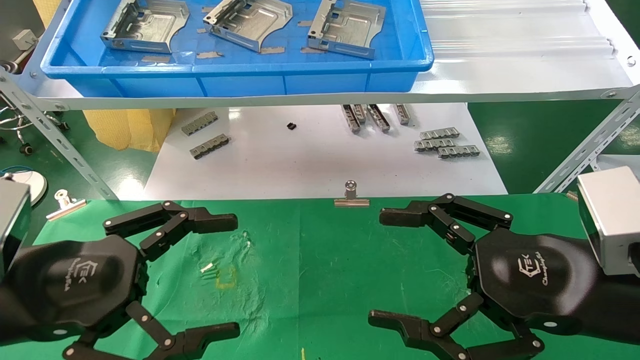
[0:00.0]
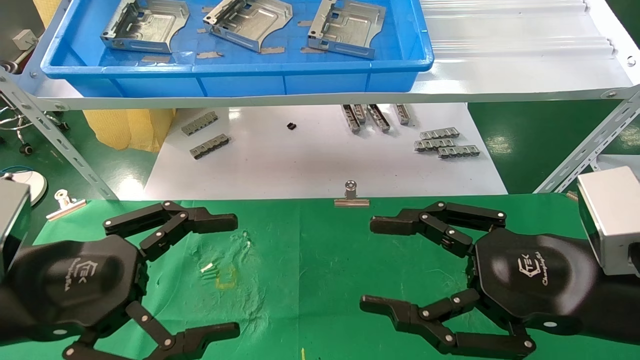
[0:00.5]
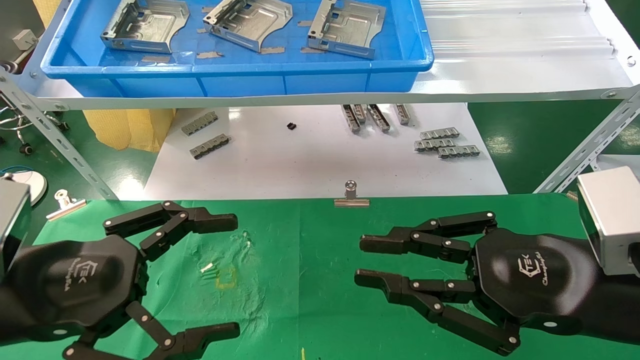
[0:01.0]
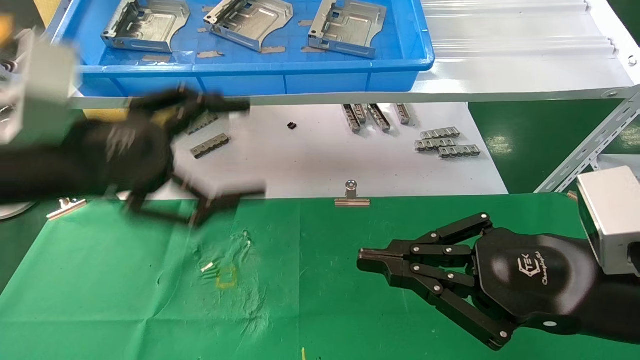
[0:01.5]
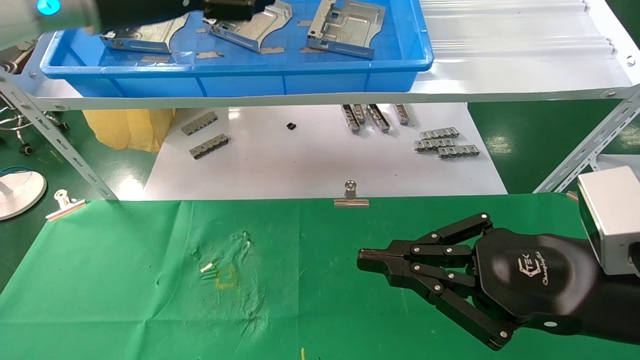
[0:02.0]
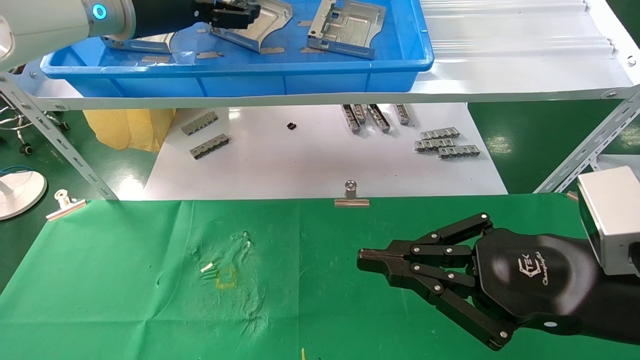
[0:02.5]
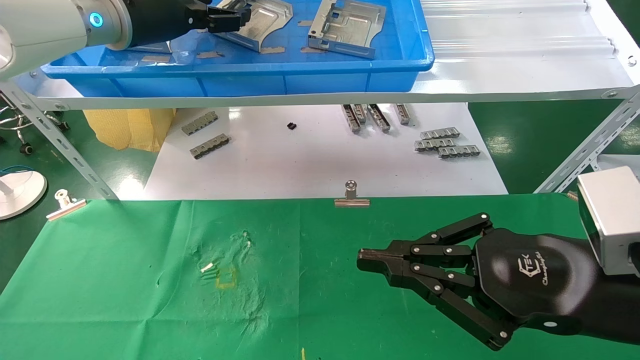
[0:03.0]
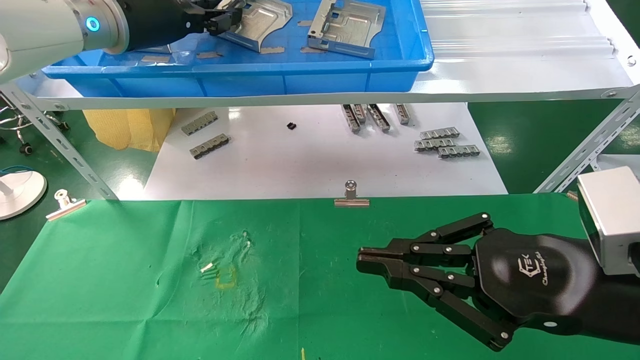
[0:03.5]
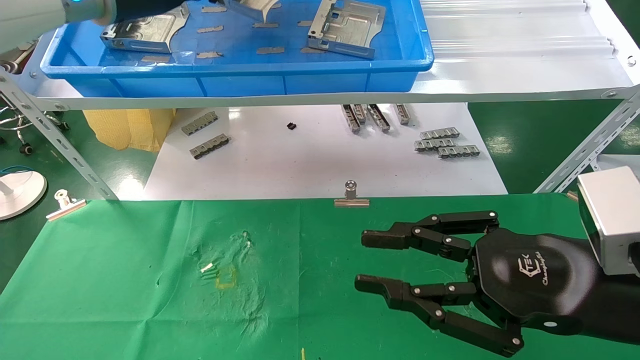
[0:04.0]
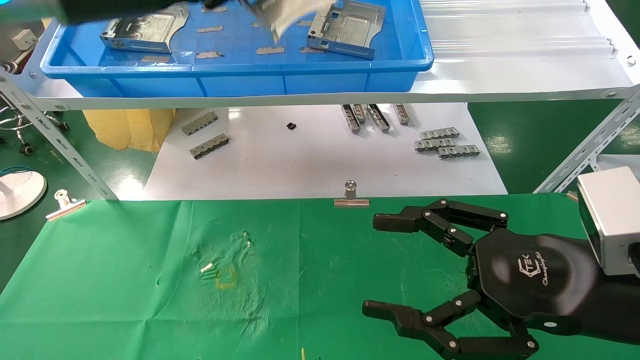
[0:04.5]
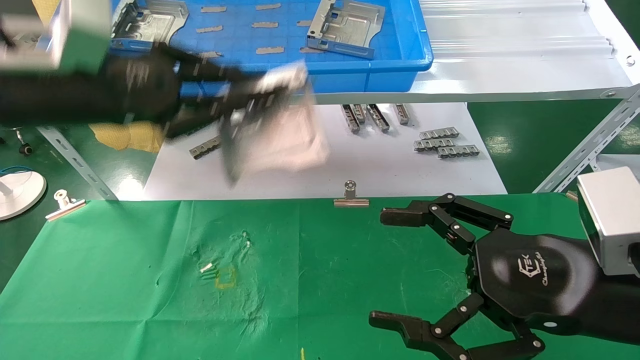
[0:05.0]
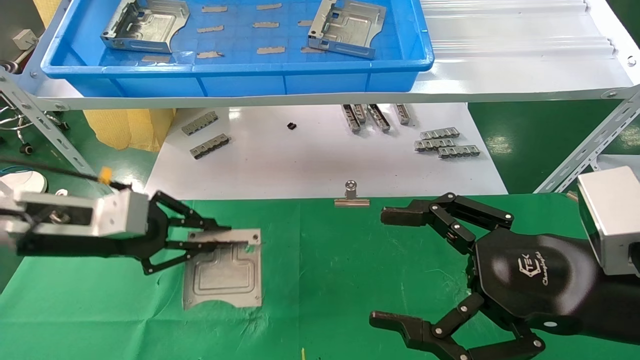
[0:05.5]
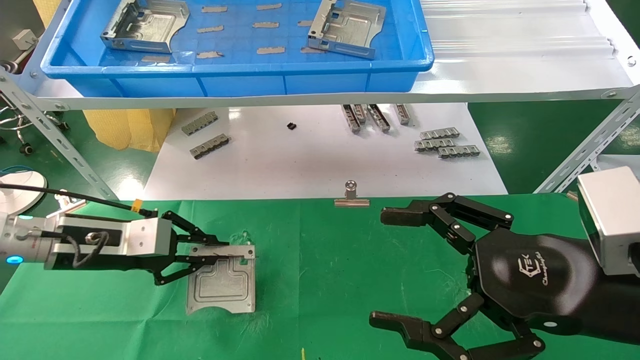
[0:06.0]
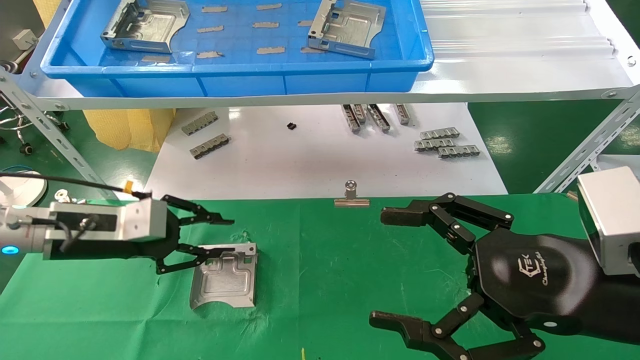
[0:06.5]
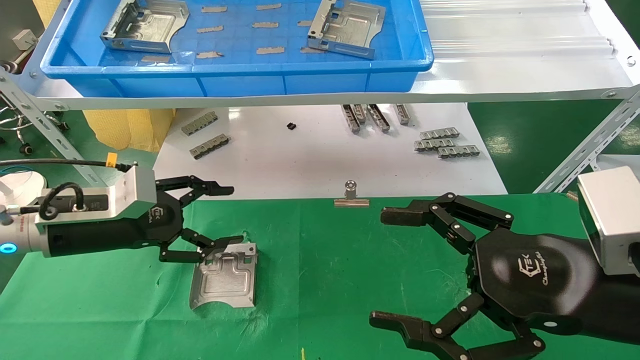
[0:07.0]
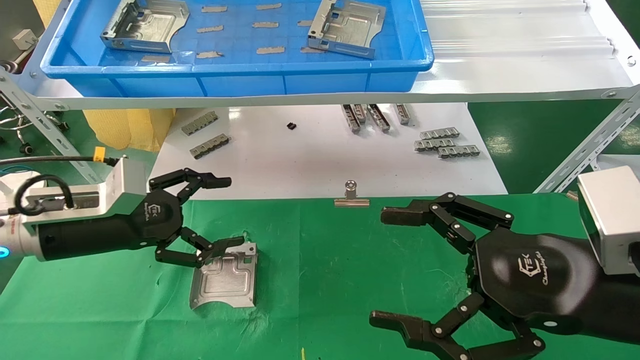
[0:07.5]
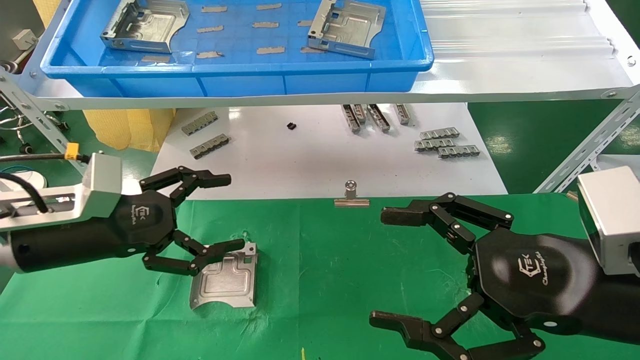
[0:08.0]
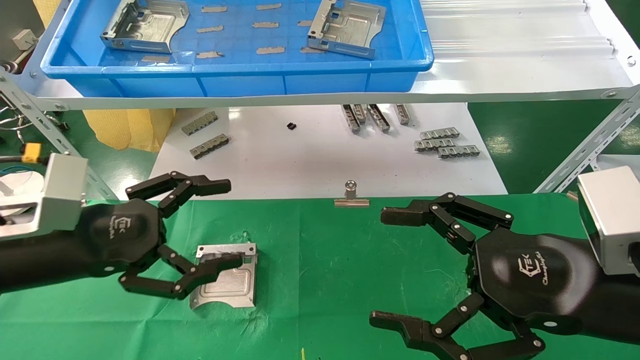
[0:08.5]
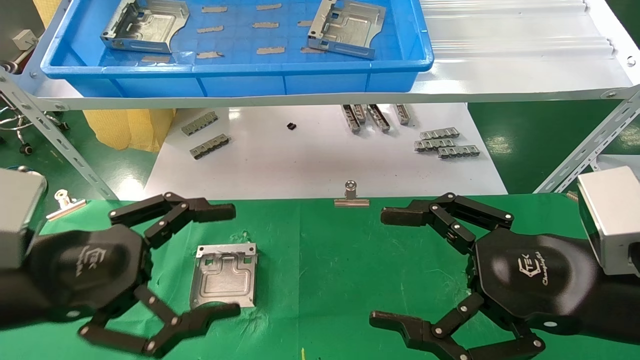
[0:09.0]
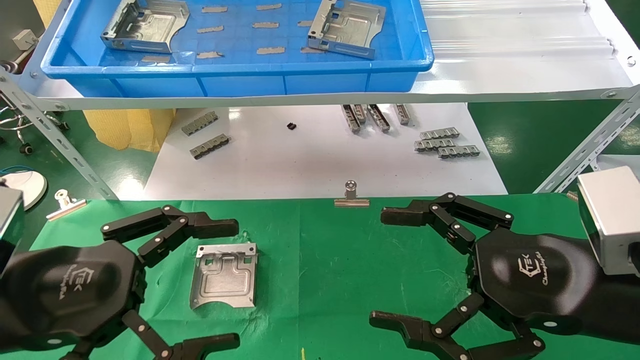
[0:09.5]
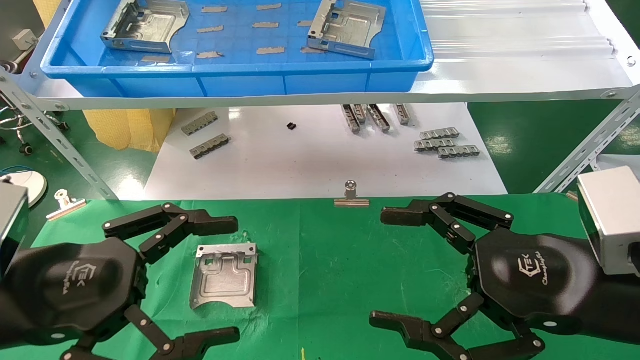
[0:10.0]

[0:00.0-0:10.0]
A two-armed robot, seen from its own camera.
Task of the whole recording: use the mechanical arm to pick up the parts and place them on the table.
Step, 0:01.0 to 0:04.0: Pick up the hard drive bracket from the feeding area.
Step, 0:04.5 to 0:07.0: Place the hard drive bracket into the box.
0:00.0 to 0:02.0: The right gripper closes. The left gripper travels upward and forward by about 30 cm.
0:02.0 to 0:04.0: The left gripper closes up.
0:04.0 to 0:06.0: The right gripper opens up. The left gripper moves downward, roughly 30 cm.
0:06.0 to 0:08.0: The left gripper goes some 5 cm backward, and opens its fingers.
0:08.0 to 0:10.0: The left gripper moves backward, roughly 10 cm.
